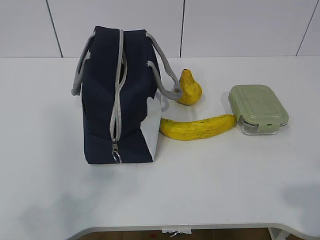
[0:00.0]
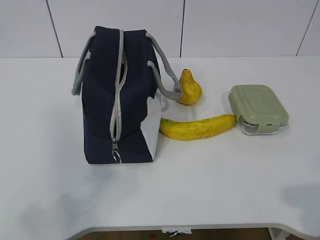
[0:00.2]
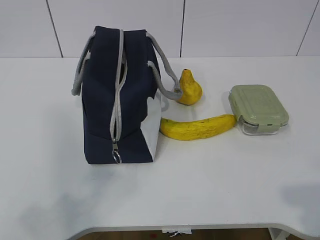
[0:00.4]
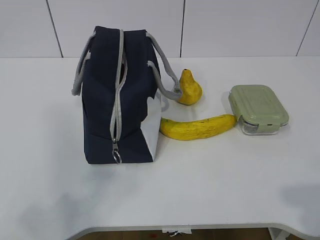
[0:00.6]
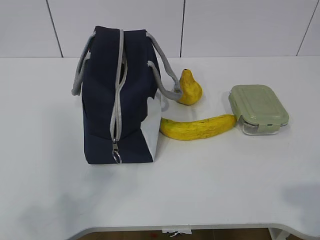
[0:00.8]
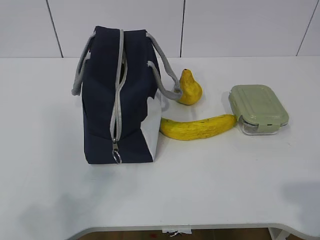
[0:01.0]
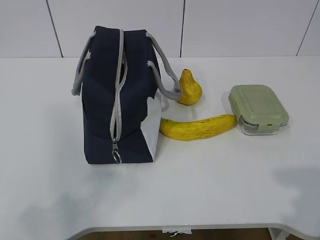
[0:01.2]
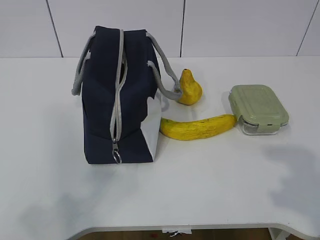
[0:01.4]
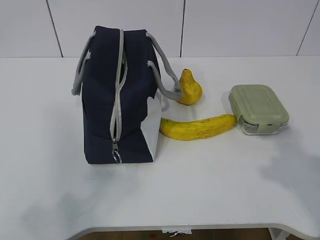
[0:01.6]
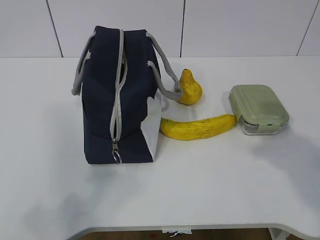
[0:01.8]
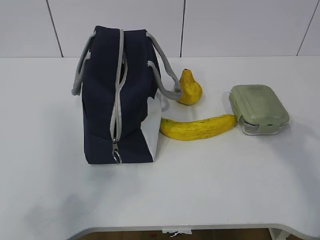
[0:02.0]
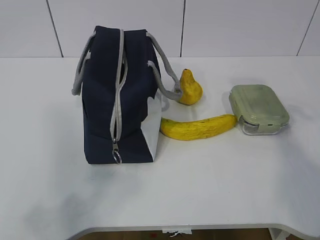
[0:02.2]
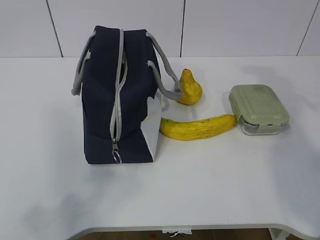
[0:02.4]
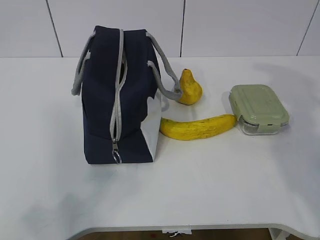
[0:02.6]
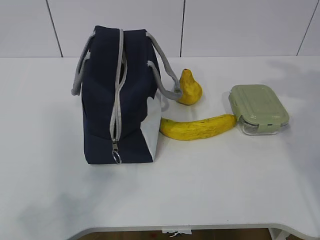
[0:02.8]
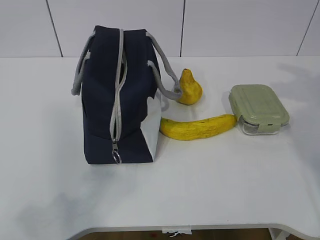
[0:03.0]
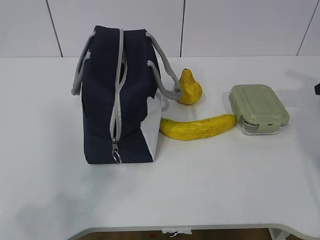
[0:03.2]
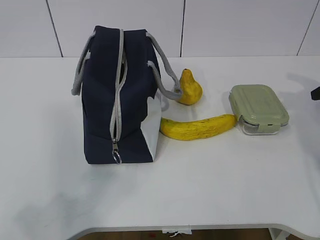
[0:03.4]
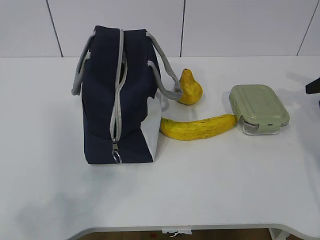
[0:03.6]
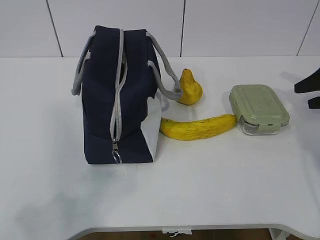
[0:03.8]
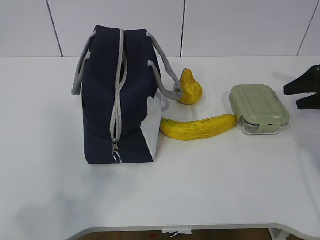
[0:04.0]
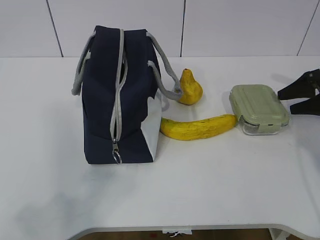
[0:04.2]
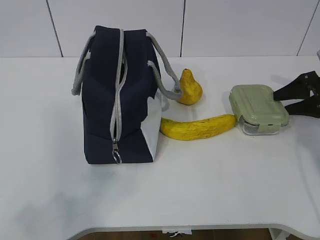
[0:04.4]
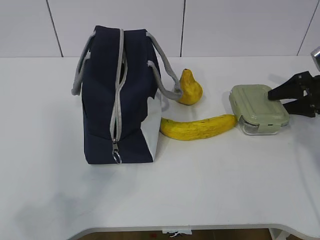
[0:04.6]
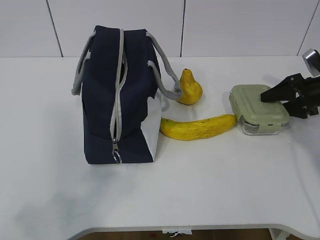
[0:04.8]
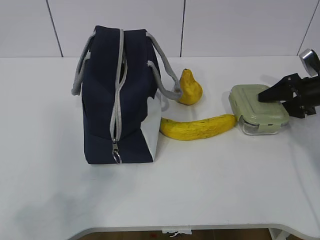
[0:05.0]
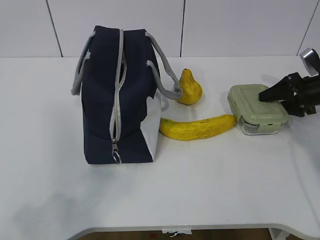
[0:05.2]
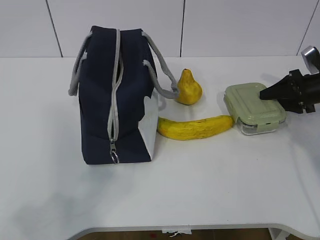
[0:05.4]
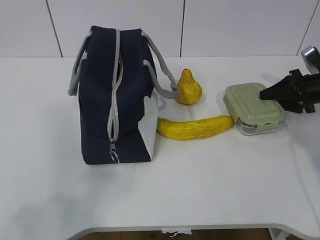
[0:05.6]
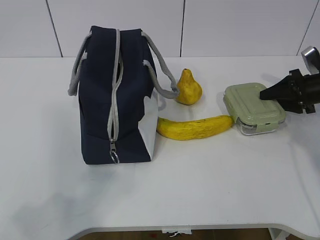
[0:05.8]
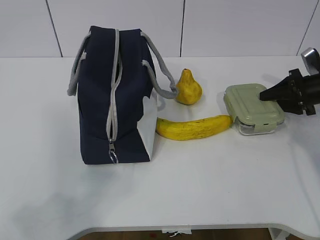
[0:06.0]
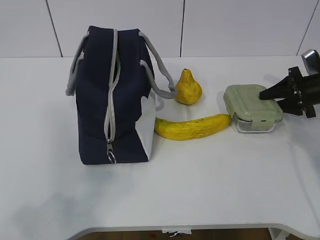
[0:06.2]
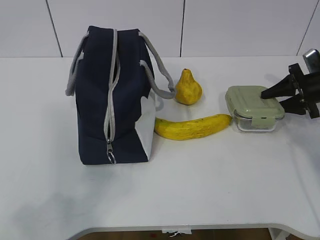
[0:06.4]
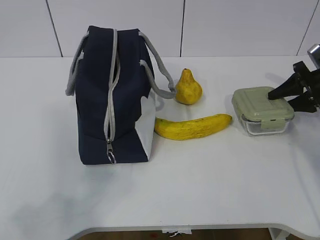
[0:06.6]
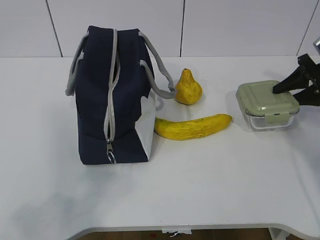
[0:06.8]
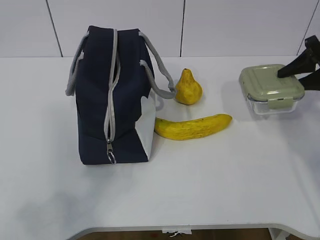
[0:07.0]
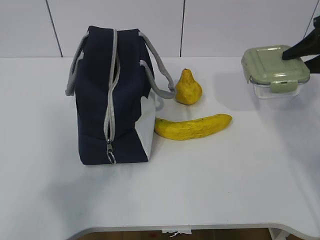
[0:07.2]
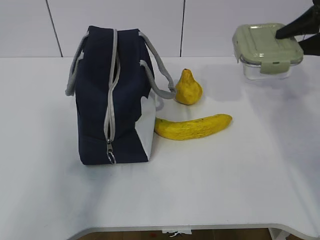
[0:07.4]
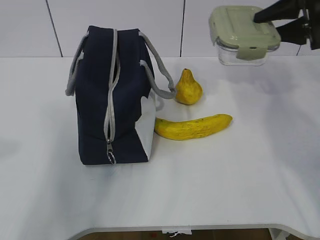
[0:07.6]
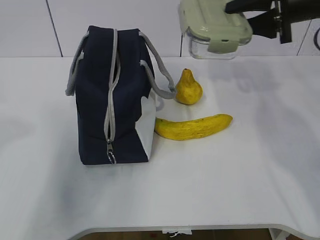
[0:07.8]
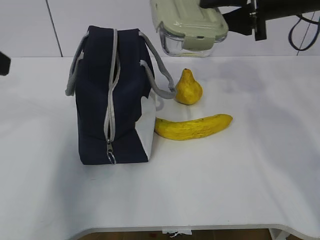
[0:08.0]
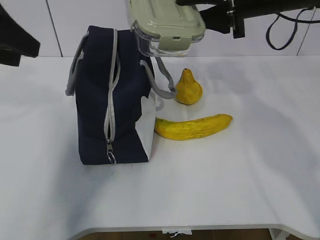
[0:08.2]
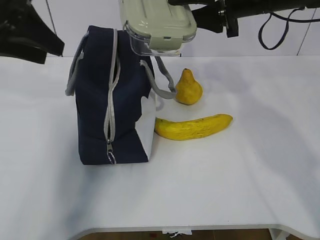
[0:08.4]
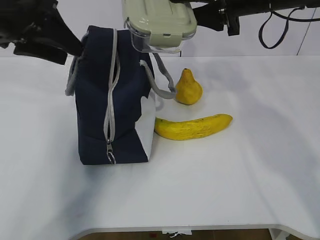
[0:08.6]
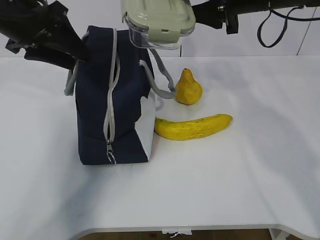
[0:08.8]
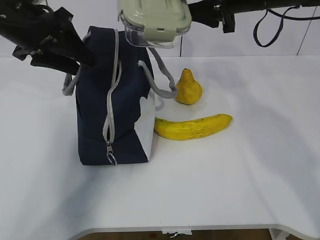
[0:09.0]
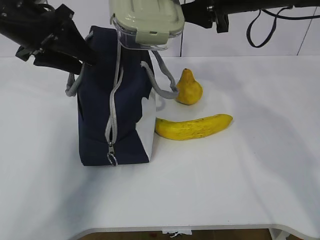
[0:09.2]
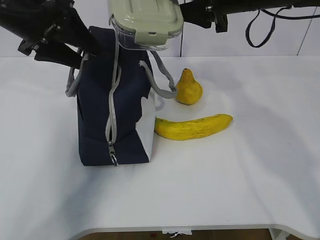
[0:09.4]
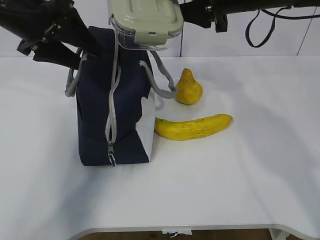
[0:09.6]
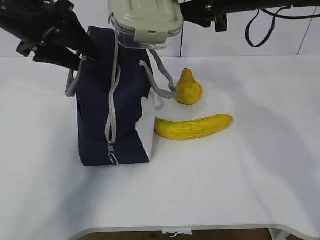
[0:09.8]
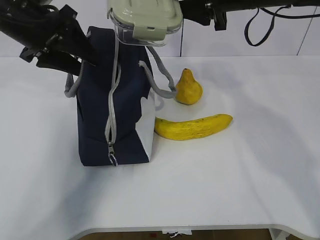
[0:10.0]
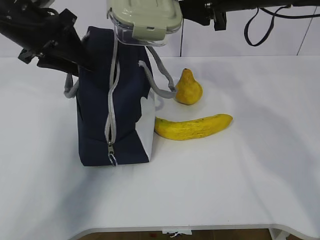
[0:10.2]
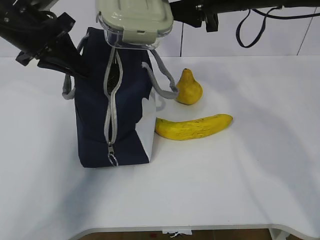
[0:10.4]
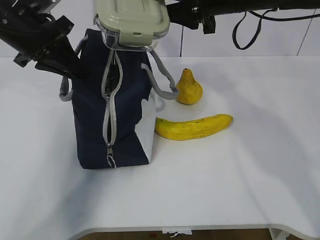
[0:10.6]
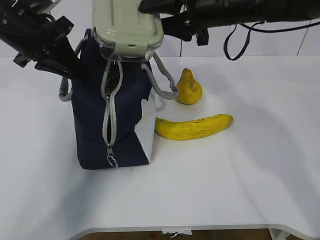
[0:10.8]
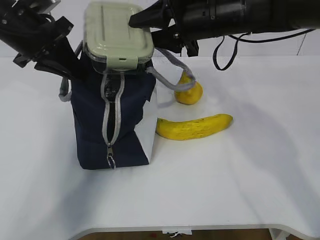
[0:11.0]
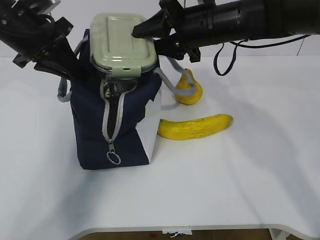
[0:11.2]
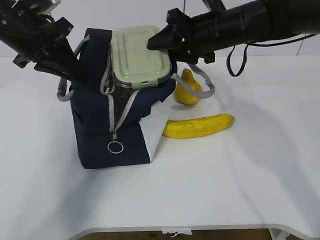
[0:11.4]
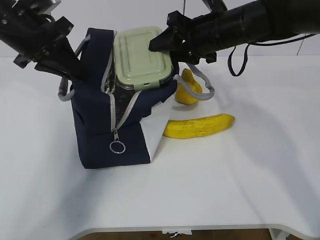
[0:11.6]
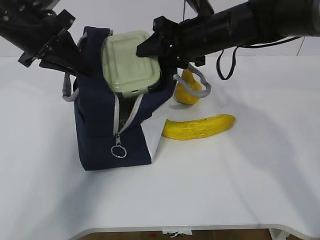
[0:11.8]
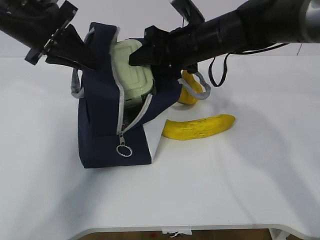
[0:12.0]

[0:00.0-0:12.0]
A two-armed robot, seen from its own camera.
Step, 0:04.6 to 0:08.8: Grab the lunch bag with your left hand.
0:03.0 to 0:04.4: The right gripper travels downward by about 10 cm.
0:04.4 to 0:06.0: The right gripper closes its fingers.
0:06.0 to 0:07.6: The left gripper moves forward and upward, some 15 cm. The right gripper heads upward and to the left, covering roughly 20 cm.
0:07.6 to 0:09.0: The left gripper shifts approximately 25 cm forward. Meanwhile the right gripper goes approximately 15 cm to the left.
0:09.0 to 0:10.4: The left gripper closes up.
0:10.4 to 0:12.0: The right gripper heads downward, covering roughly 10 cm.

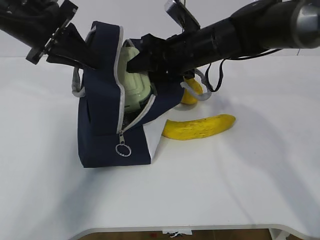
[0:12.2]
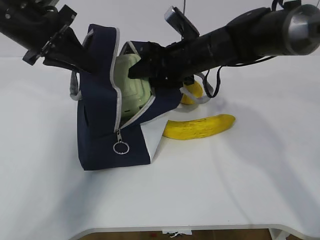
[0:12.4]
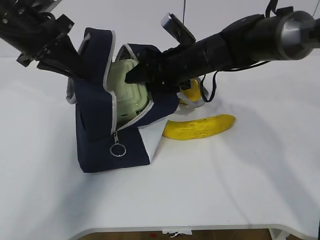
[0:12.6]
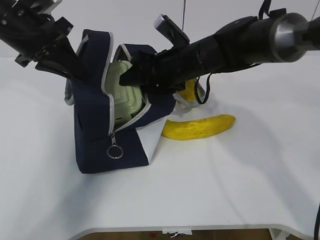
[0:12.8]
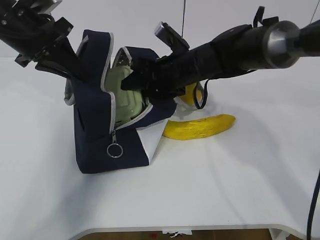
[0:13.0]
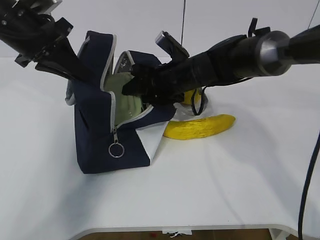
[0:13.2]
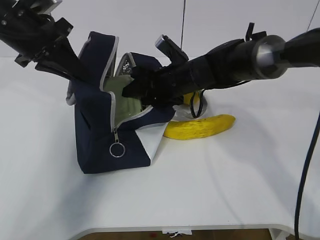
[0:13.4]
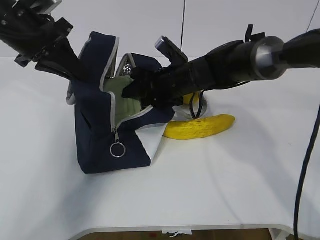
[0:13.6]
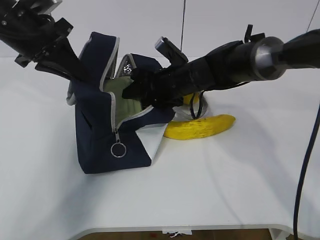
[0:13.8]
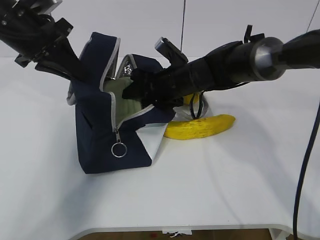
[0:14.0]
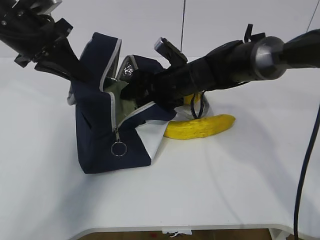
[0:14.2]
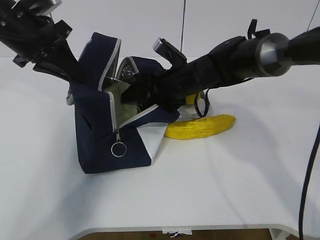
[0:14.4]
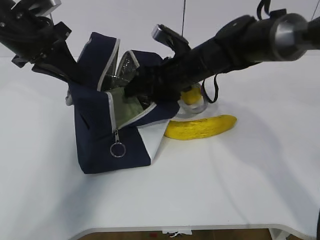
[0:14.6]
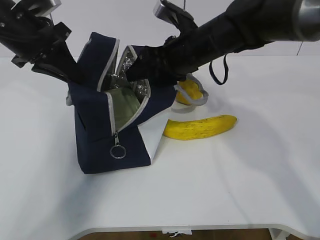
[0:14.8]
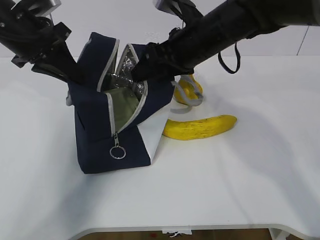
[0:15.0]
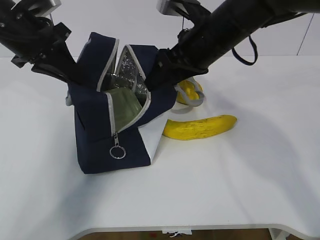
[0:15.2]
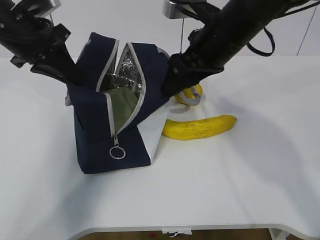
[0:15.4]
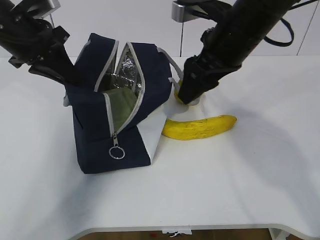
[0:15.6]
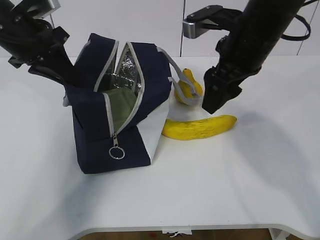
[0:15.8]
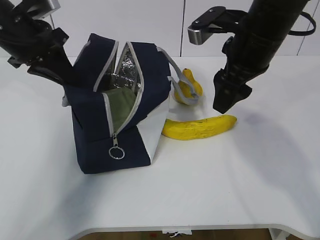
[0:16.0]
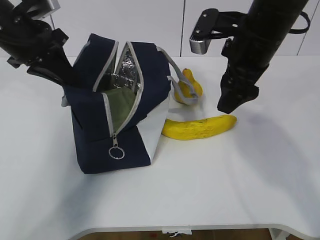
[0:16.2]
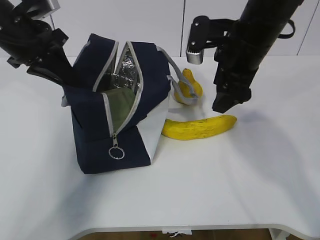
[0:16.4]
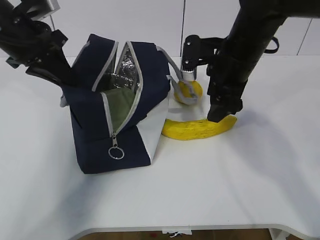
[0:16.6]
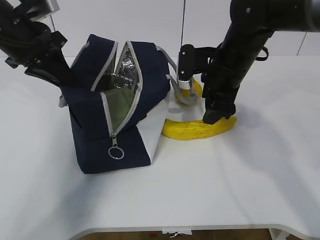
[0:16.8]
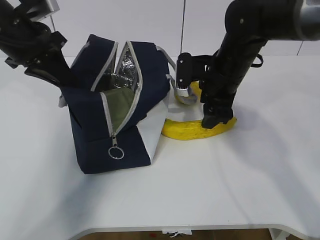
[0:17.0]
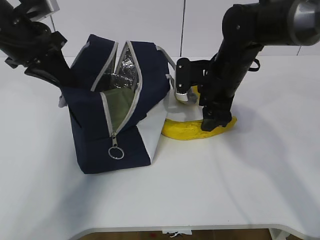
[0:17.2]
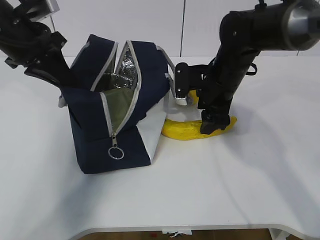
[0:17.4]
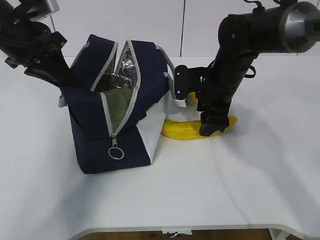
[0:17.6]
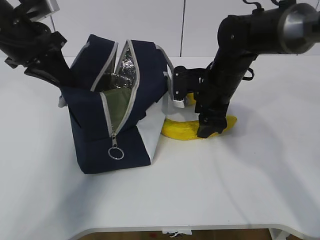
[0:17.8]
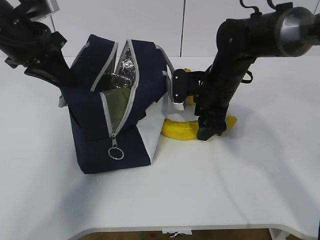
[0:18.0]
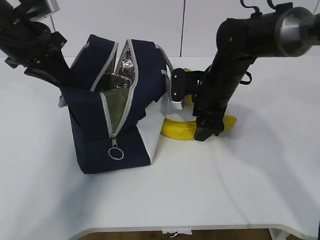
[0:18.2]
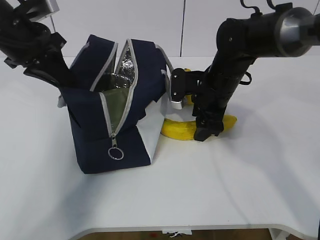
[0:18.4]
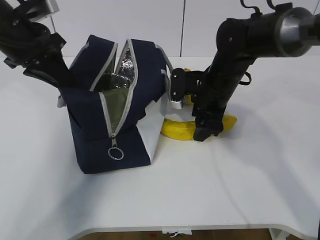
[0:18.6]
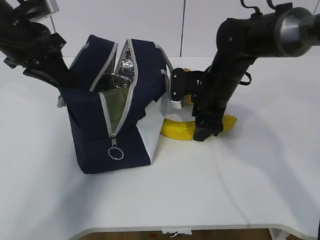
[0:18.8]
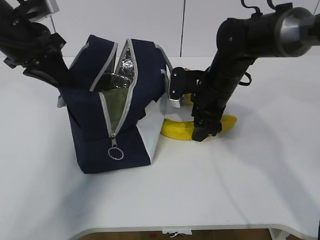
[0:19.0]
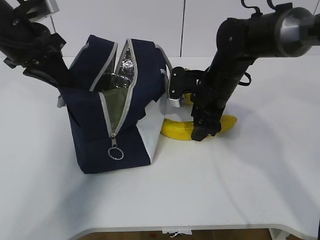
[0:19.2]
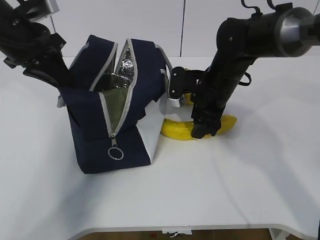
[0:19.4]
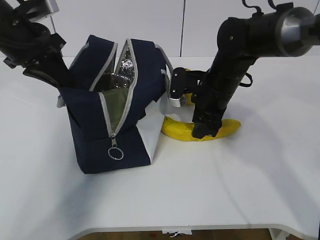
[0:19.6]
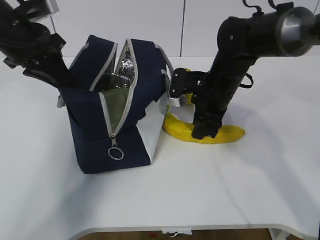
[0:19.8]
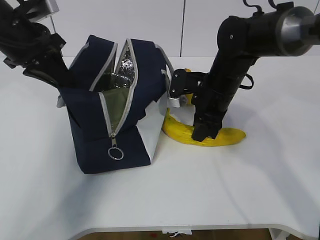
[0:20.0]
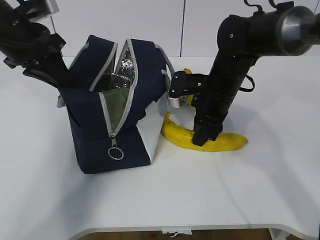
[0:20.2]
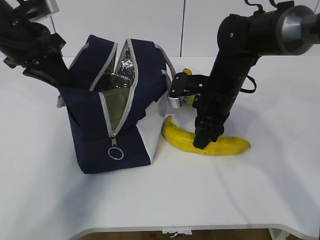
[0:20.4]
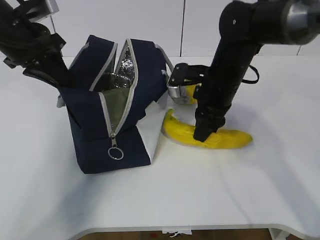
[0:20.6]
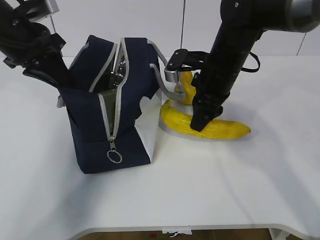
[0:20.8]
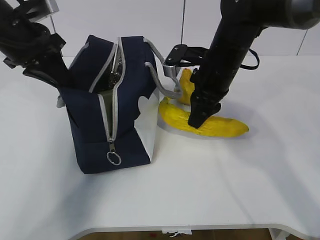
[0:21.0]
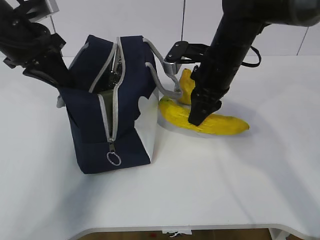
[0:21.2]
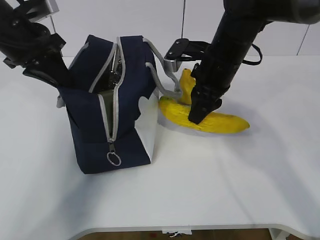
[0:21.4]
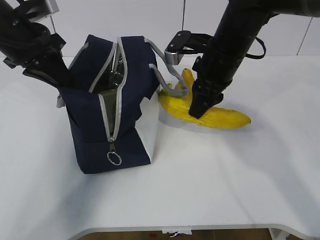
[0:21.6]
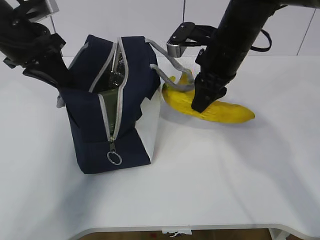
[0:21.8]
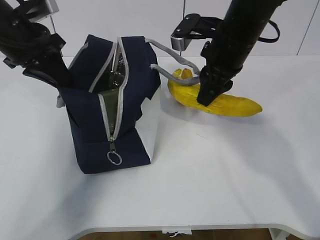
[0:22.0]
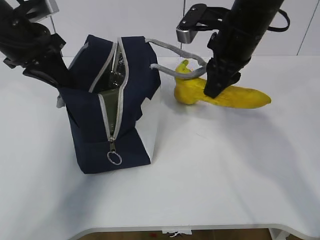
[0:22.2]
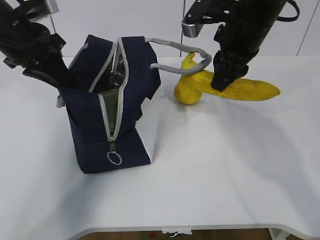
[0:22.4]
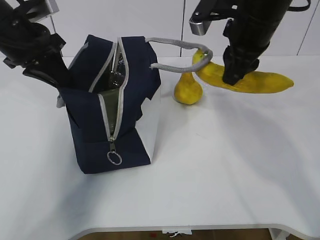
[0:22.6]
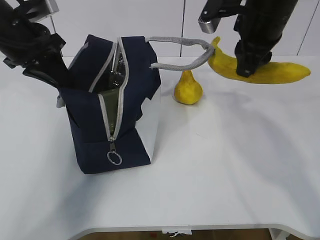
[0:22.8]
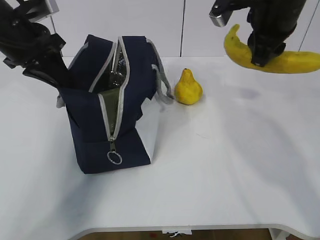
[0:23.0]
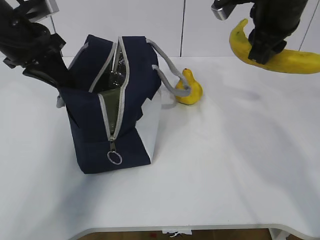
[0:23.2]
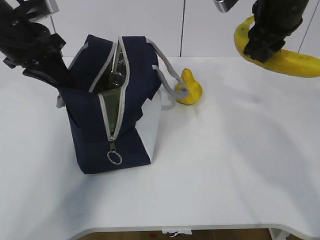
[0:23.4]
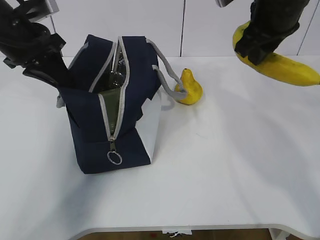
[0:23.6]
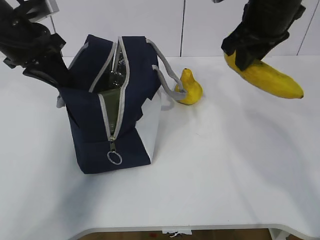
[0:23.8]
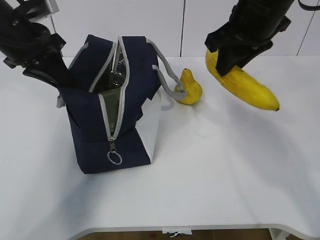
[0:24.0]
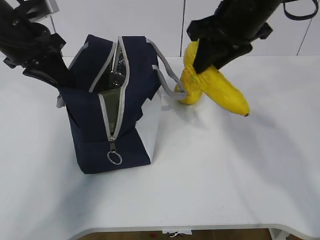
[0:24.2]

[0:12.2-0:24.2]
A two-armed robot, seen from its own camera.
Step, 0:12.2 to 0:16.4: Grab the banana with your right hand.
Step, 0:16.6 to 0:22.0: Place it into the bag with your right hand.
0:12.2 to 0:13.8: The right gripper moves downward, about 5 cm.
0:13.8 to 0:15.2: The right gripper moves upward and backward, some 15 cm.
0:15.2 to 0:16.6: The right gripper moves roughly 5 cm.
0:16.6 to 0:18.2: The right gripper goes roughly 5 cm downward.
0:18.2 to 0:19.8: The right gripper closes.
0:19.8 to 0:21.2: The right gripper shifts some 5 cm upward.
0:21.2 to 0:22.6: The right gripper moves upward, approximately 10 cm.
